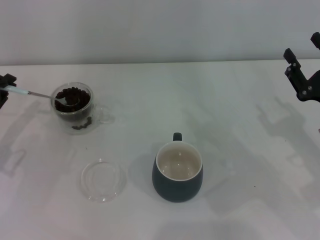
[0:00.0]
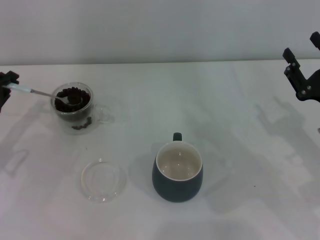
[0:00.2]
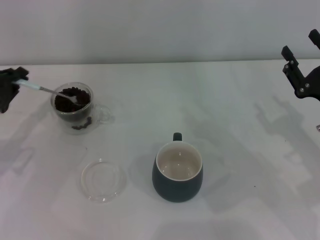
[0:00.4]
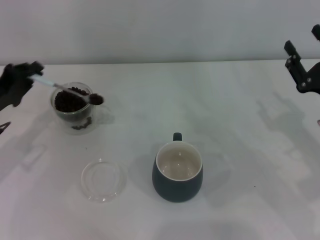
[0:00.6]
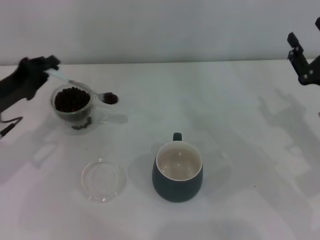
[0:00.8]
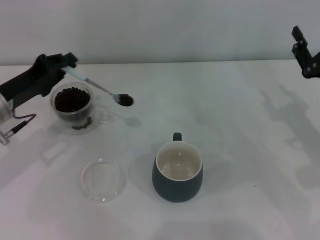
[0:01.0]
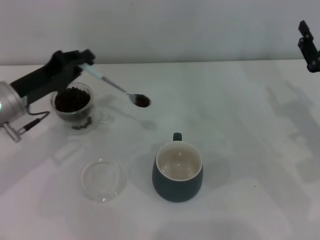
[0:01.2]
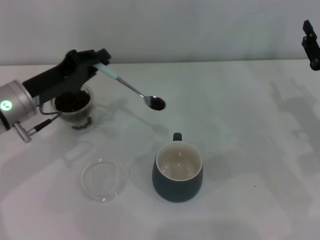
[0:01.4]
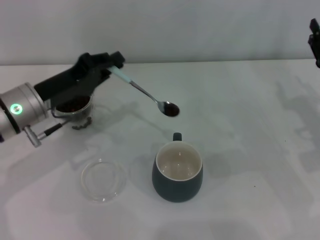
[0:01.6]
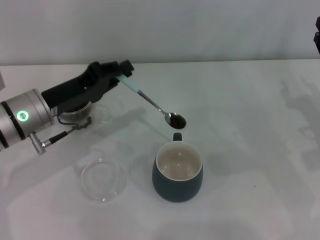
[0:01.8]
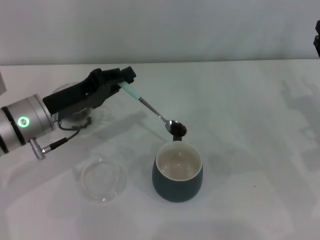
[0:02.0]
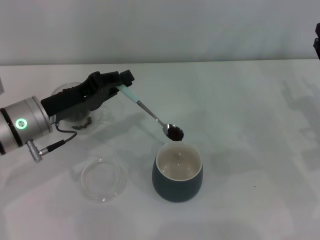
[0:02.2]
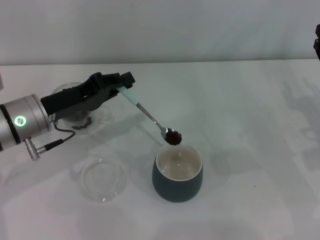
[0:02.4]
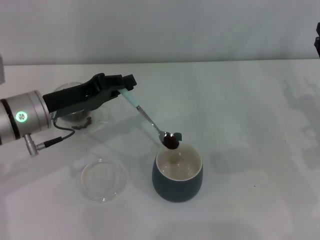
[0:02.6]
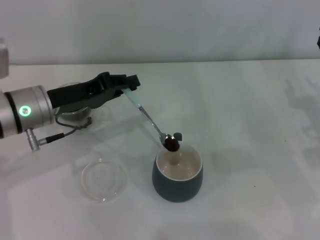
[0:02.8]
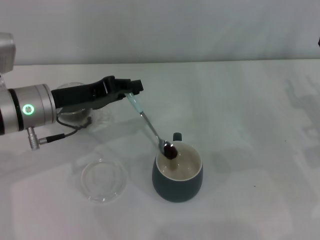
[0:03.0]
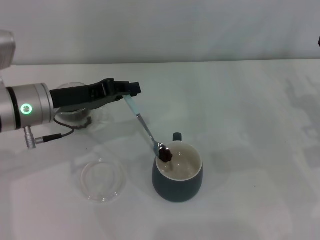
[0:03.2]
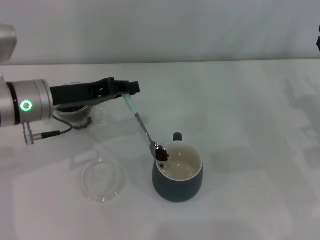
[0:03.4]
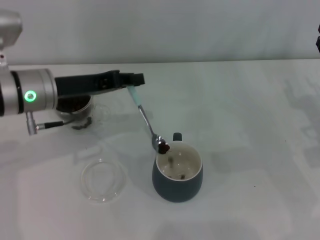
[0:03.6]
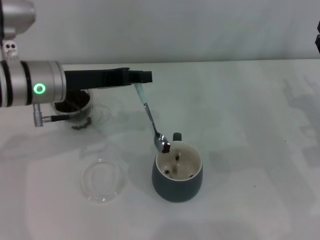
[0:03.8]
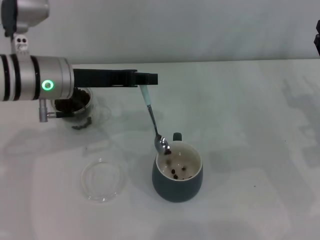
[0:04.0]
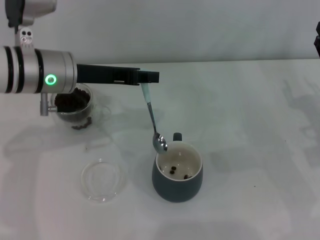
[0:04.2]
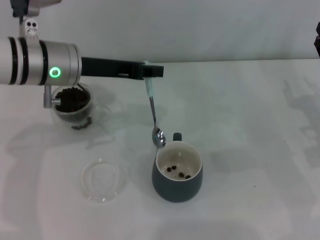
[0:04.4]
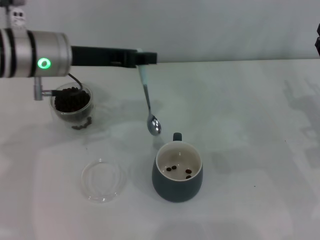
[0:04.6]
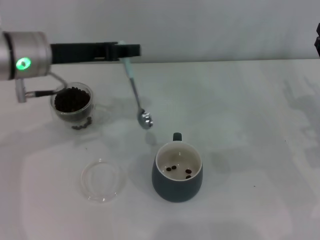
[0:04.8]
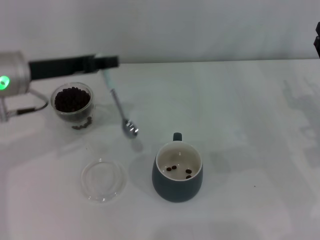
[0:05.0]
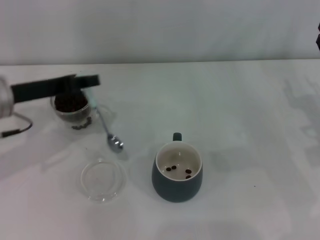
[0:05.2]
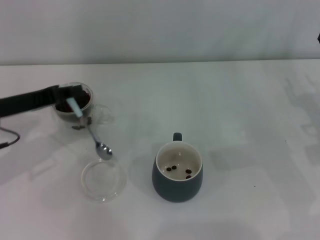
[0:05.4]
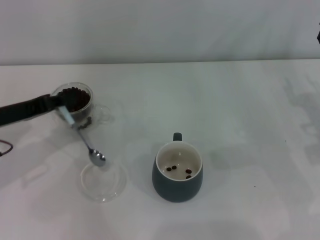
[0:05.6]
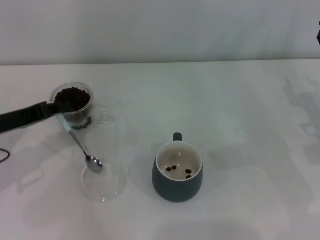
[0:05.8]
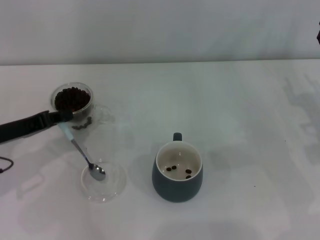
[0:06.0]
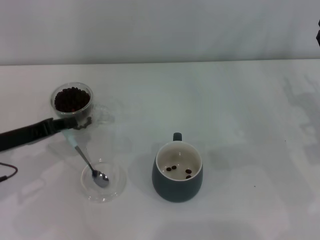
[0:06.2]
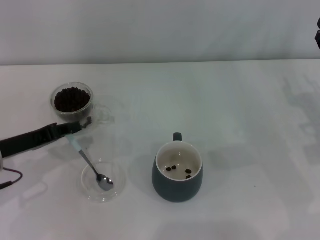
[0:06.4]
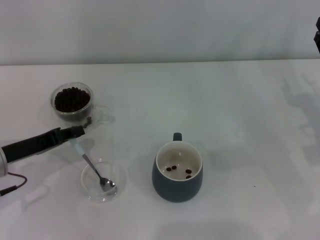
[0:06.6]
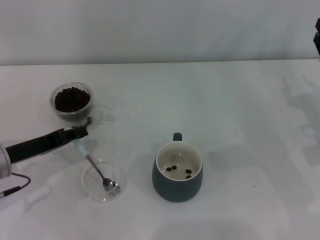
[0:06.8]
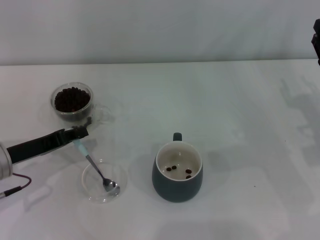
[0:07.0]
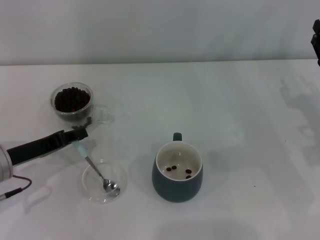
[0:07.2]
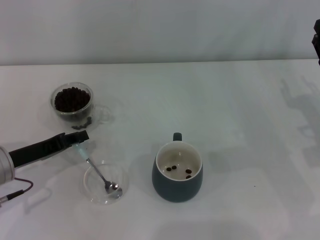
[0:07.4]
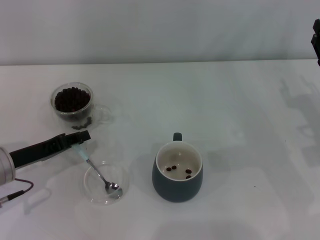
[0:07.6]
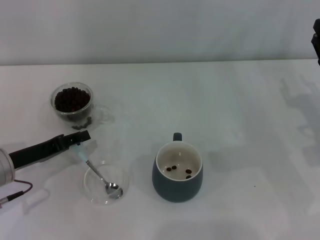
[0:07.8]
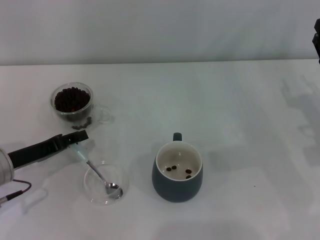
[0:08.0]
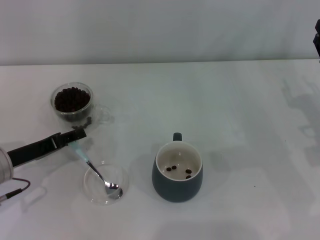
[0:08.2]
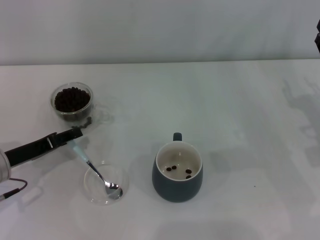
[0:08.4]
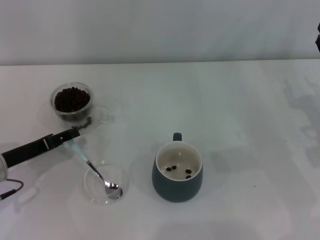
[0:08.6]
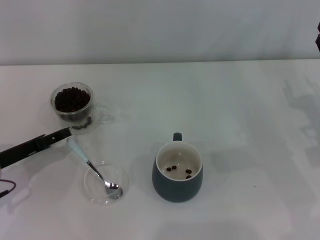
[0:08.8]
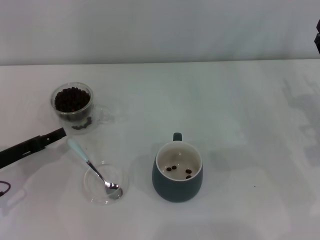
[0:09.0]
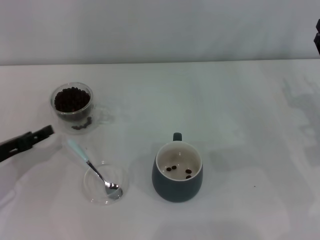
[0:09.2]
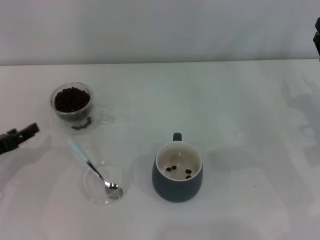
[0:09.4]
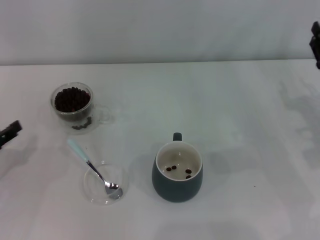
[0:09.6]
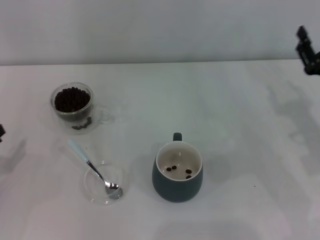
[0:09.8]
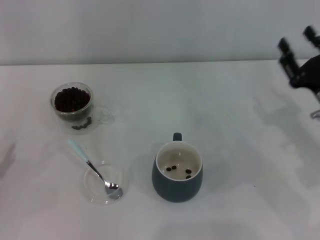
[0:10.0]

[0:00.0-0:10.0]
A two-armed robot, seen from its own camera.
Task of the whole recording: Use a blue spoon to take out the coffee beans from the glass and pour them into the gray cup.
Step, 0:00.0 to 0:04.6: Scoop a spoonful of beans into the cup with the right gripper.
0:00.0 to 0:01.4: The left gripper is displaced to the right by about 10 cm.
0:01.4 to 0:02.8: The grippers stay close to where they were, moving slightly.
0:02.8 to 0:04.2: The left gripper moves upward, approximately 5 cm.
0:04.2 to 0:05.8: The left gripper is displaced to the left, downward and backward by approximately 15 cm.
0:05.8 to 0:07.2: The left gripper shifts about 5 cm downward.
0:07.2 to 0:08.6: The left gripper opens.
0:08.6 to 0:10.0: The left gripper is displaced to the left and backward by some 10 cm.

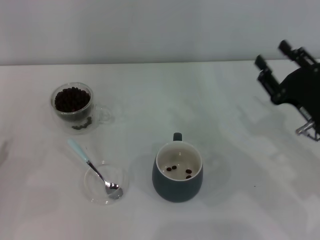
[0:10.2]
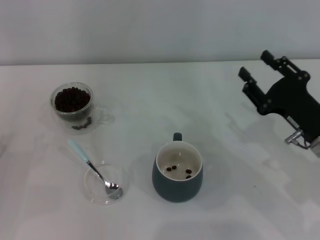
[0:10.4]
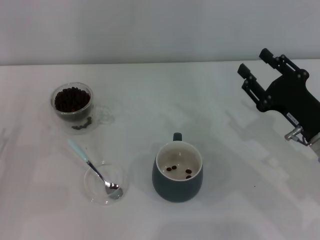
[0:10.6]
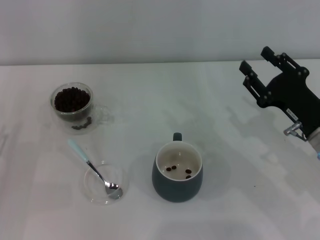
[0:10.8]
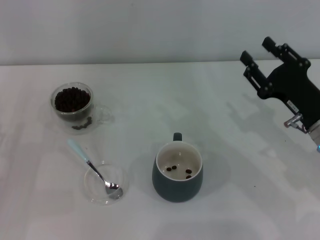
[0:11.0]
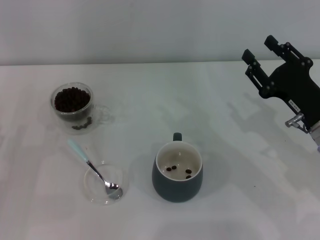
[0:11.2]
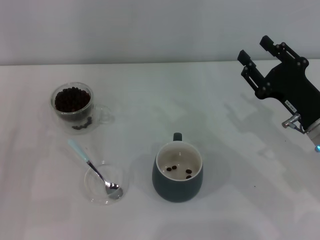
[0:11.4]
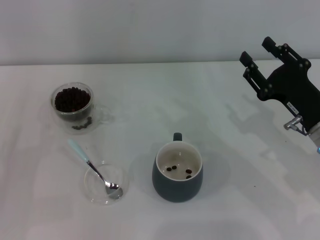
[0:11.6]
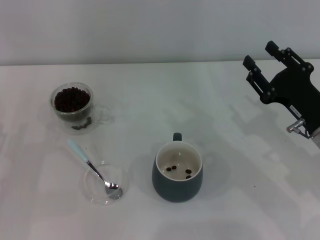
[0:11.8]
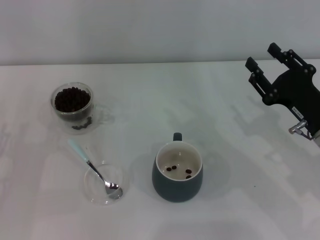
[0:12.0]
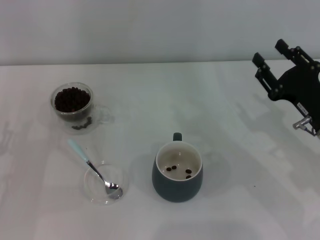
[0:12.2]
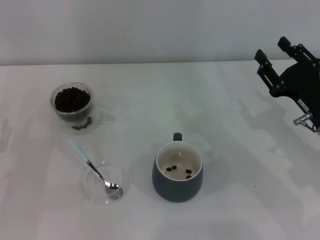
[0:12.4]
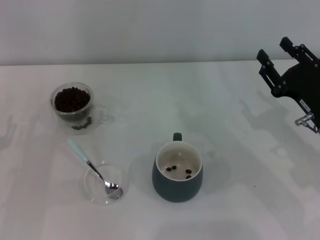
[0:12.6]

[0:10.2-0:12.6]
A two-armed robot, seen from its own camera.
Task of the whole recording: Use a blue spoon to take out the coffee beans from the glass and pour them into the gray cup.
0:11.4 to 0:12.6: The grippers move only a little.
